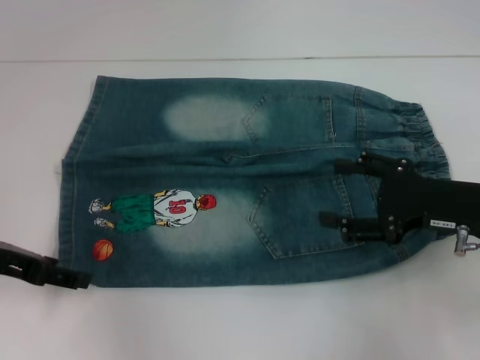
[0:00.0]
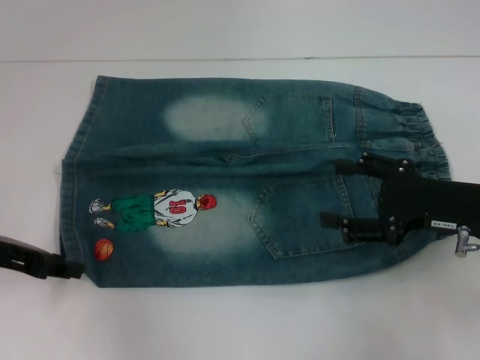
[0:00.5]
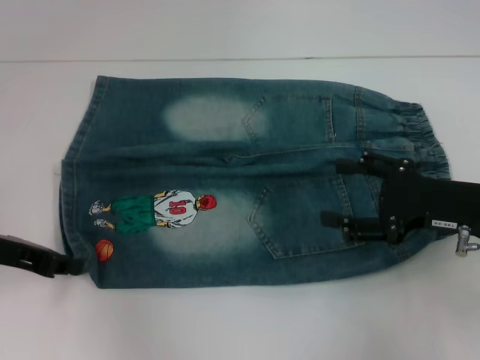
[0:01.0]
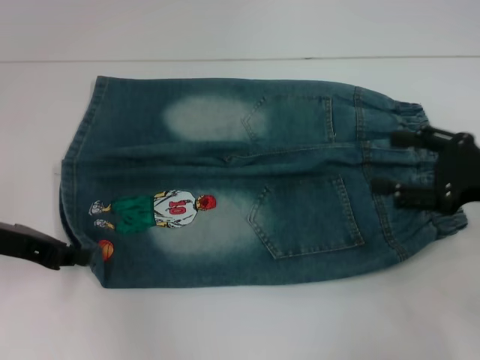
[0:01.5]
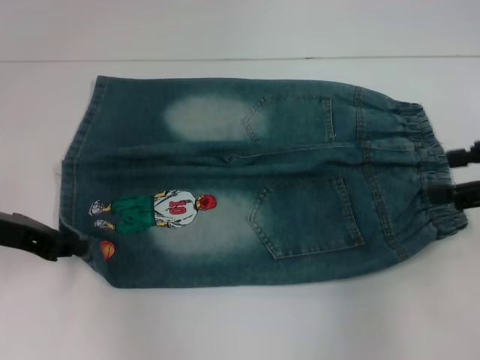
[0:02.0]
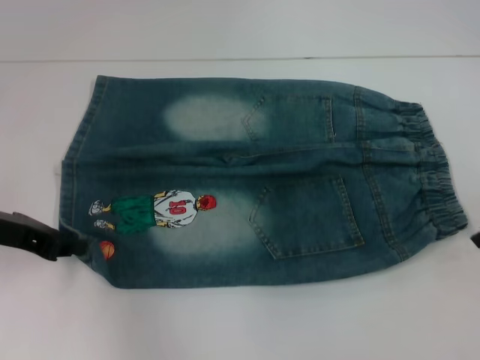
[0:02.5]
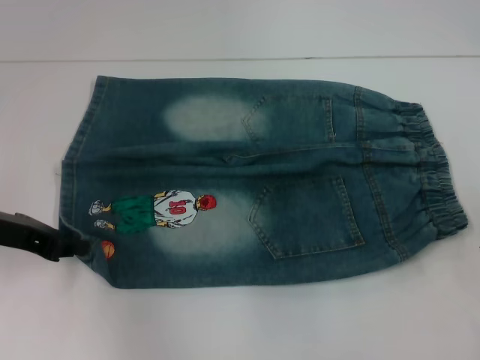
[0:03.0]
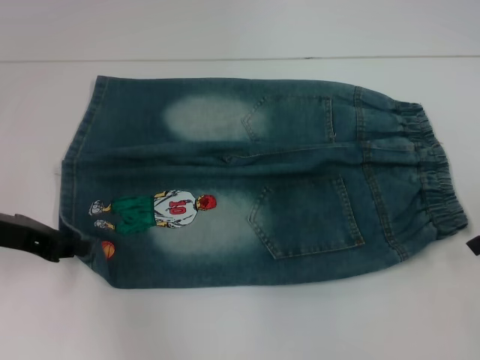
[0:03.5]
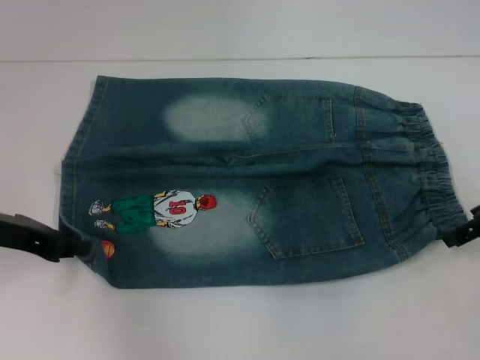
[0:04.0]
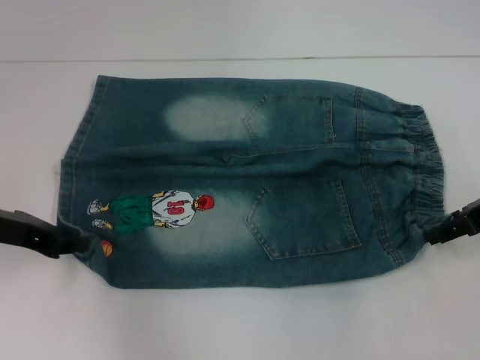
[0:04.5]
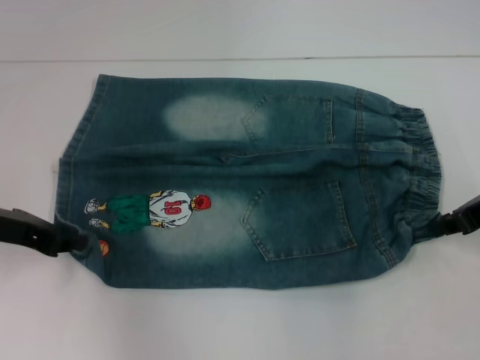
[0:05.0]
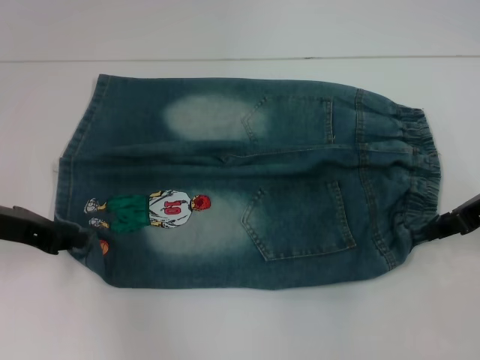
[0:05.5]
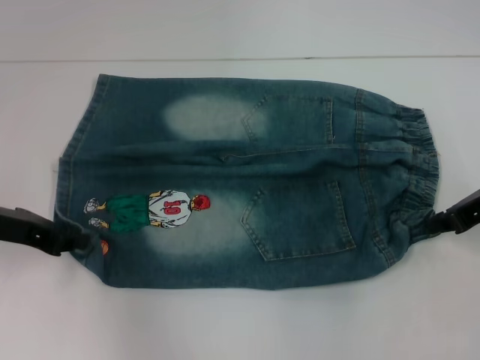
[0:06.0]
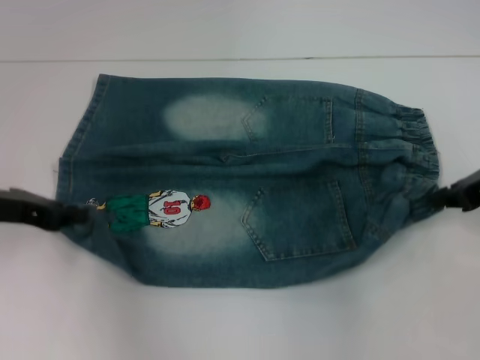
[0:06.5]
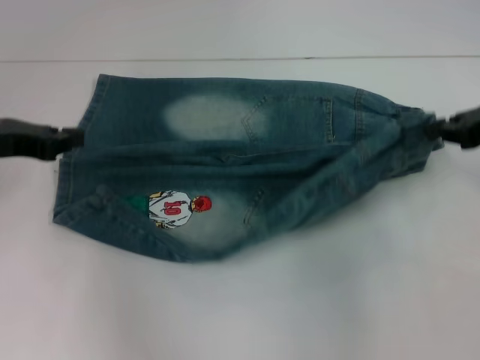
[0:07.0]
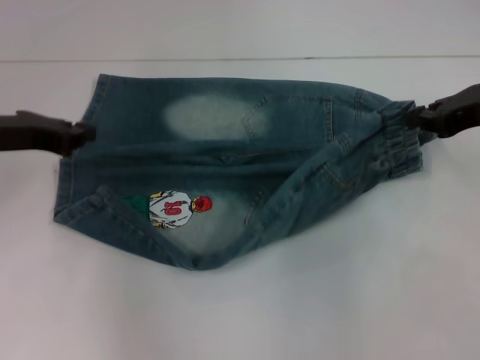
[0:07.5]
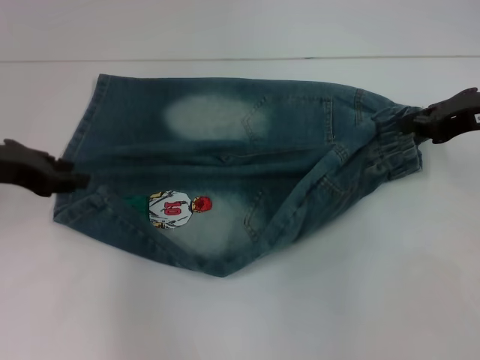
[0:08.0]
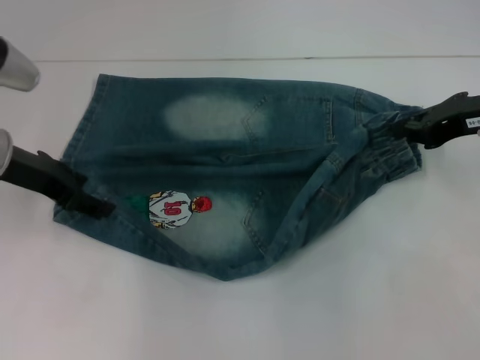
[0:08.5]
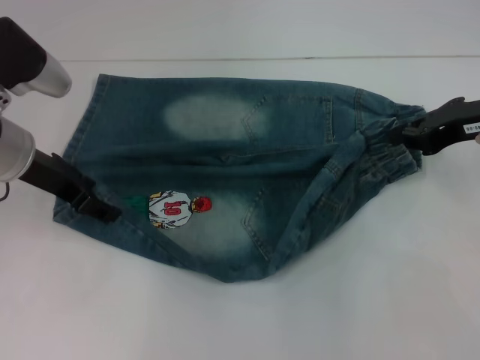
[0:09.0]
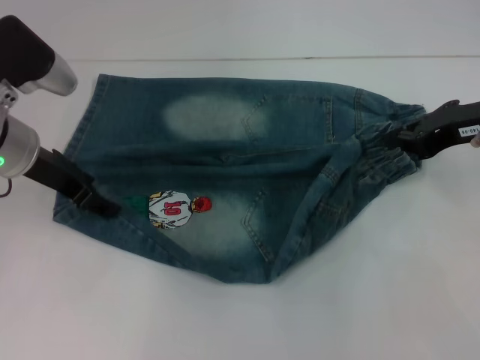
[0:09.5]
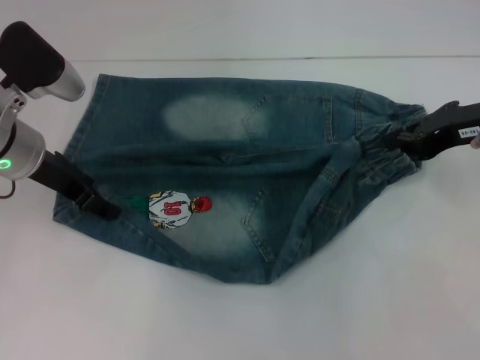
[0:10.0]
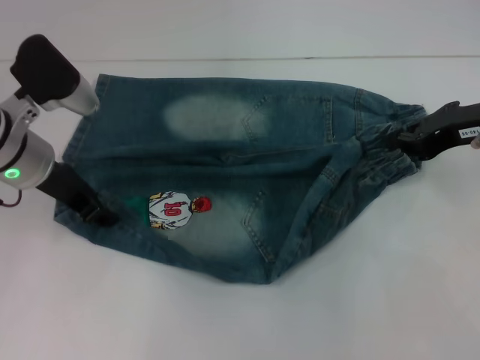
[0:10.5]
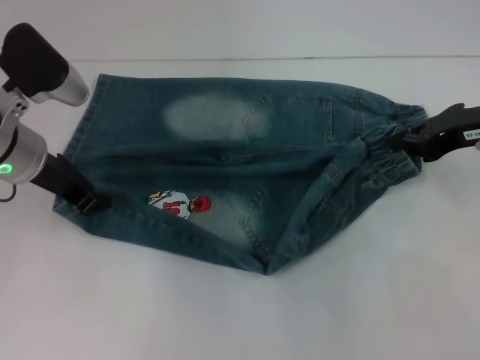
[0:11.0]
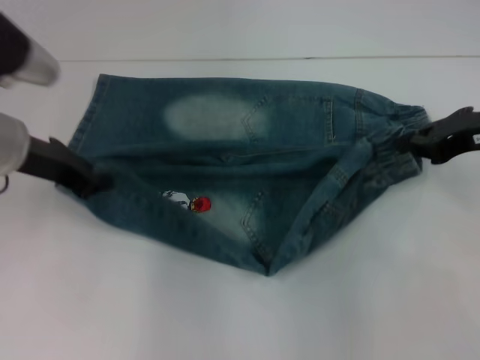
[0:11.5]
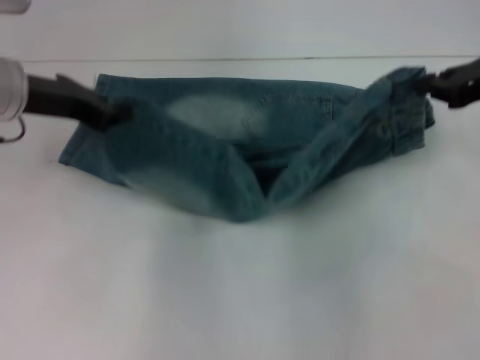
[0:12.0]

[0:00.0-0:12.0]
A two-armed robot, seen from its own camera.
Step, 0:00.0 to 0:05.5: Hold the lower right waistband with your right hand.
Step, 0:06.5 to 0:11.0: Grab the lower left pant leg with your left hand.
0:00.0 to 0:02.0: The left gripper closes, while the right gripper goes about 10 cm upward and to the right.
0:02.0 to 0:04.0: The right gripper changes place by some 5 cm.
0:04.0 to 0:06.0: The right gripper closes its fingers.
0:06.0 to 0:08.0: The right gripper moves some 5 cm.
0:08.0 to 0:10.0: The left gripper is displaced to the right by about 5 cm, and opens its fingers.
0:10.0 to 0:12.0: The left gripper goes about 5 cm upward, and closes its fingers.

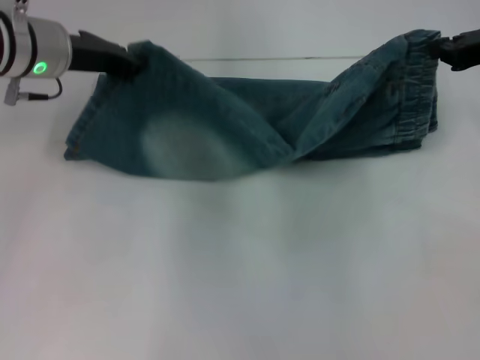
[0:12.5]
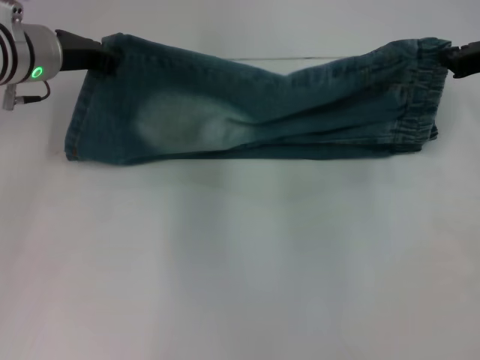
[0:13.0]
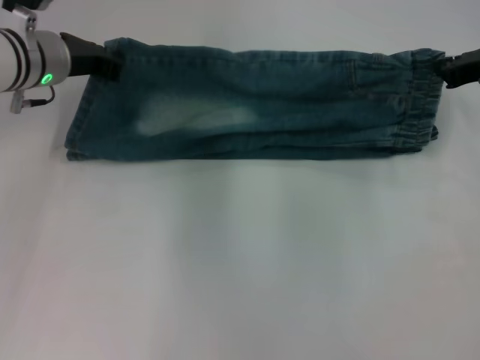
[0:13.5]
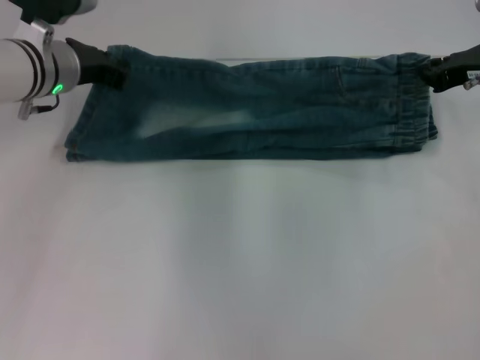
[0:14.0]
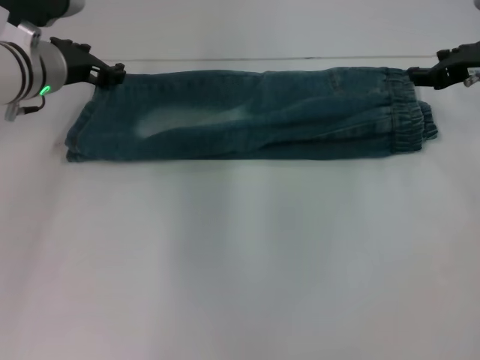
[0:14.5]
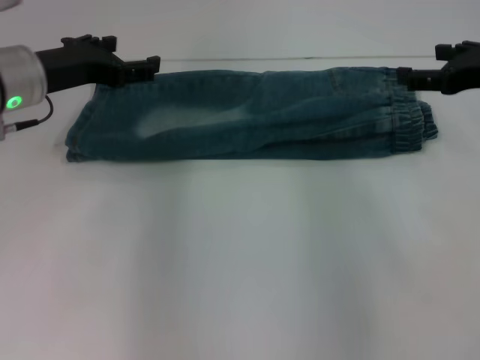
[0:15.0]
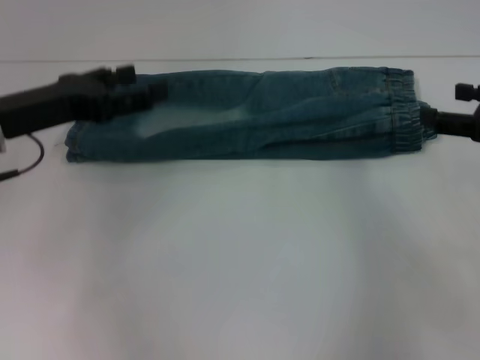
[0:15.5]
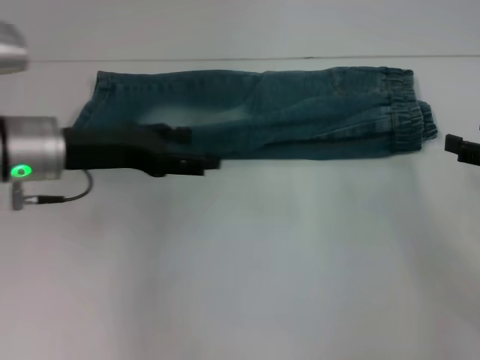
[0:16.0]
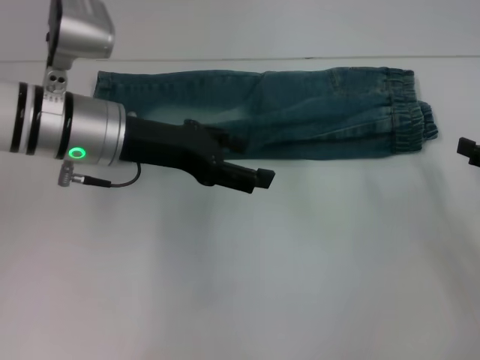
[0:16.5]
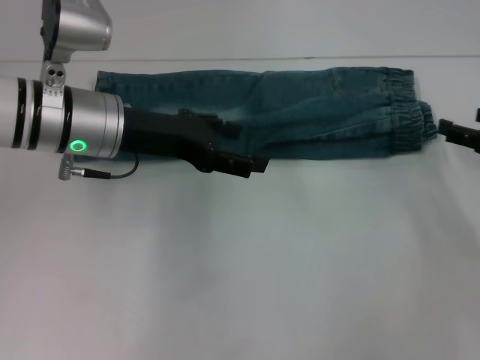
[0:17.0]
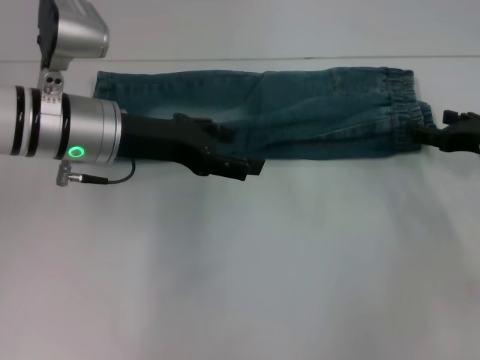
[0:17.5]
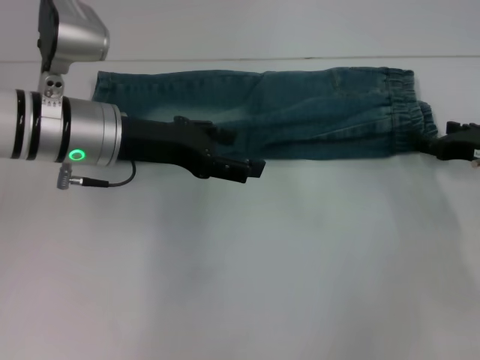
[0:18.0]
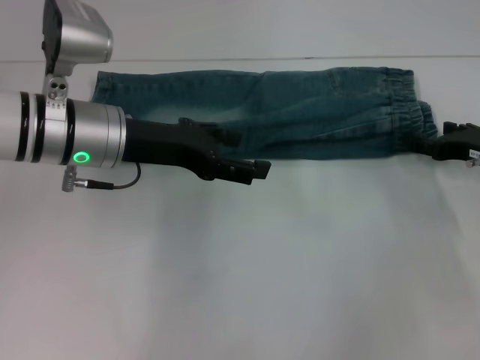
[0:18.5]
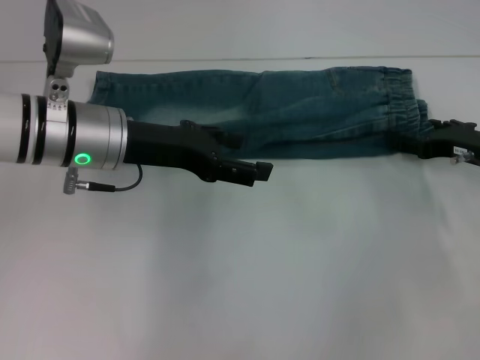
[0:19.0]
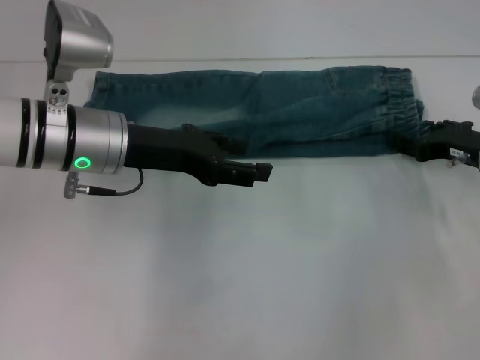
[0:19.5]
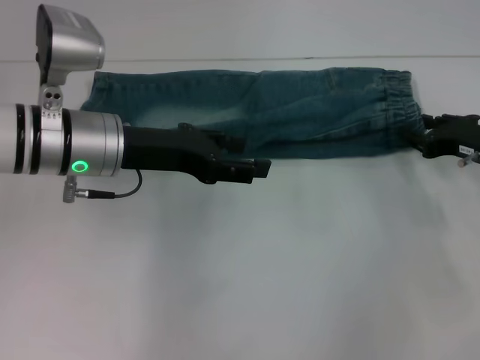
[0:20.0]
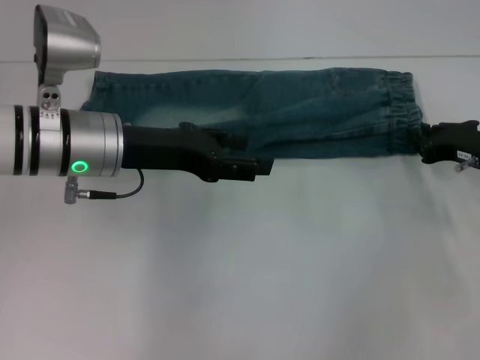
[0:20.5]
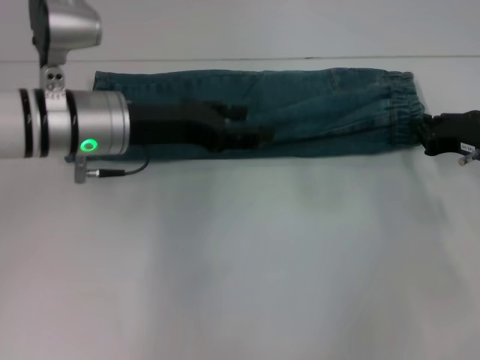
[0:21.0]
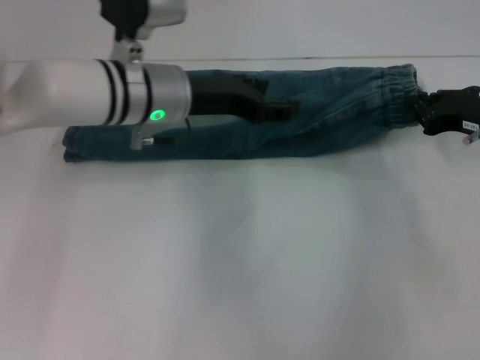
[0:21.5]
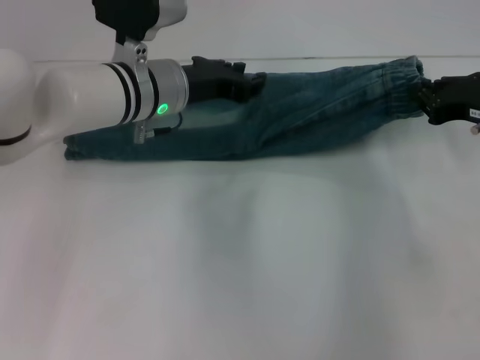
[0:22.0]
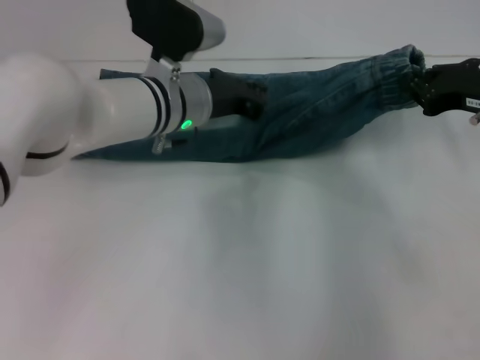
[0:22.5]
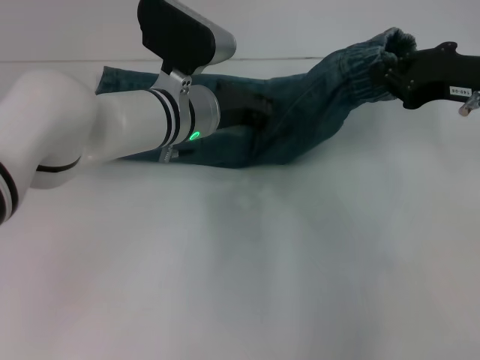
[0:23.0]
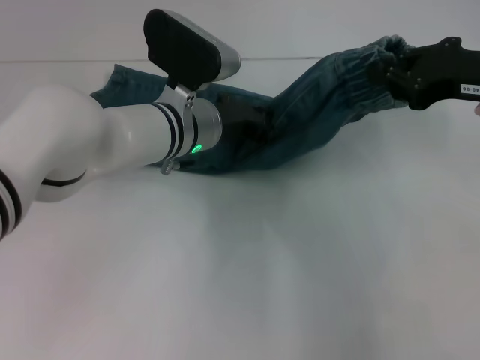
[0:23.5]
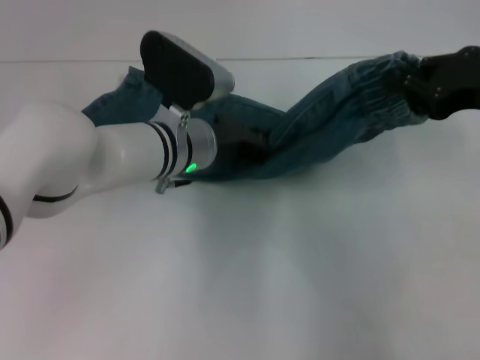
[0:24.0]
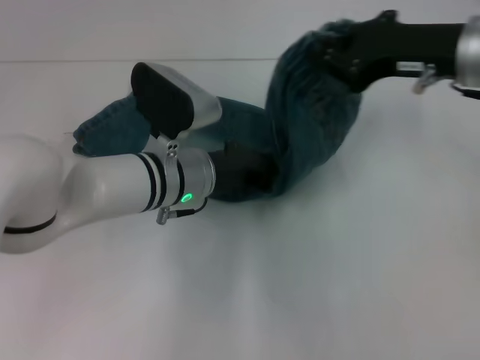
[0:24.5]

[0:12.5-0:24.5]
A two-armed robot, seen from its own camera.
Step, 0:12.5 to 0:14.0: Fold upward with your right hand.
Step, 0:14.5 to 0:21.0: Grab the waistband with your right hand.
0:12.5 to 0:14.5: The right gripper opens, while the left gripper opens up.
0:14.5 to 0:16.5: The left gripper moves backward, roughly 10 cm, and opens its fingers. Meanwhile the right gripper goes some 15 cm backward, to the right and downward, and opens.
0:16.5 to 0:18.5: The right gripper heads forward and to the left, covering roughly 10 cm.
0:18.5 to 0:20.5: The right gripper closes.
0:20.5 to 0:22.5: The left gripper moves to the right and forward, roughly 10 cm, and closes. Meanwhile the right gripper shifts some 10 cm upward.
0:22.5 to 0:24.5: The right gripper shifts approximately 10 cm to the left and upward. The left gripper goes roughly 5 cm backward.

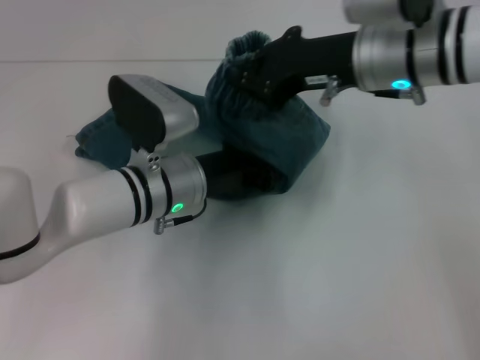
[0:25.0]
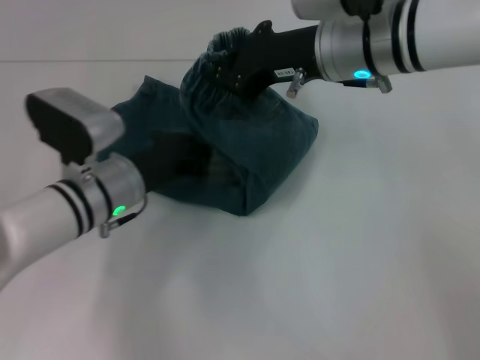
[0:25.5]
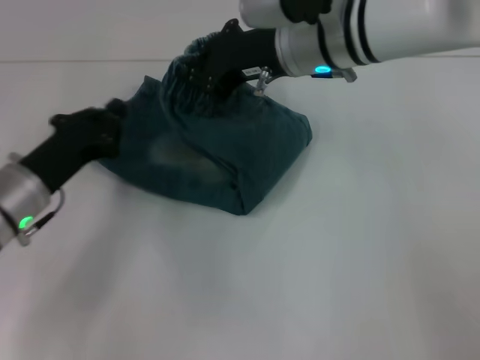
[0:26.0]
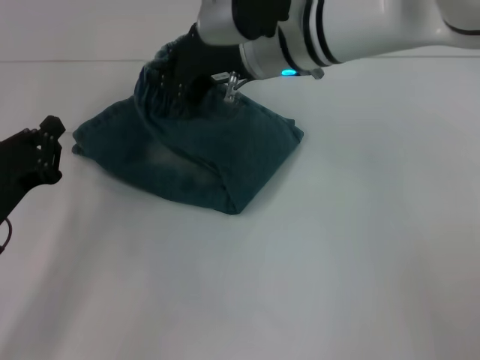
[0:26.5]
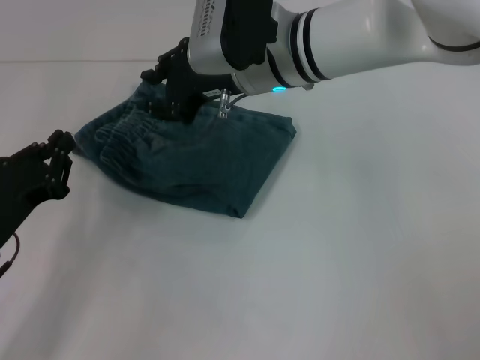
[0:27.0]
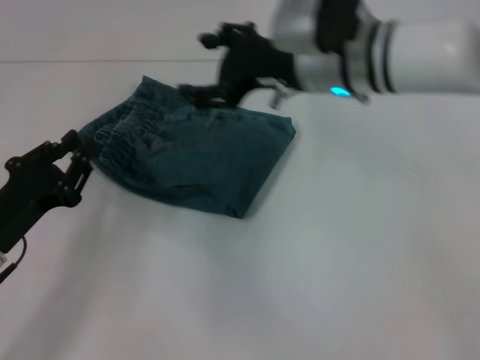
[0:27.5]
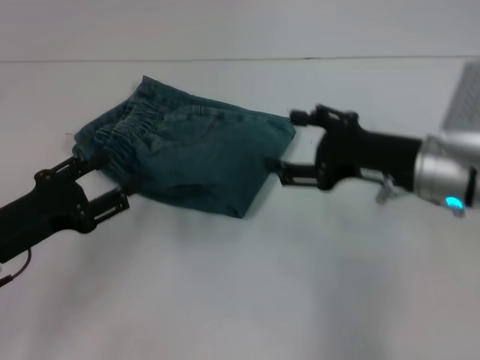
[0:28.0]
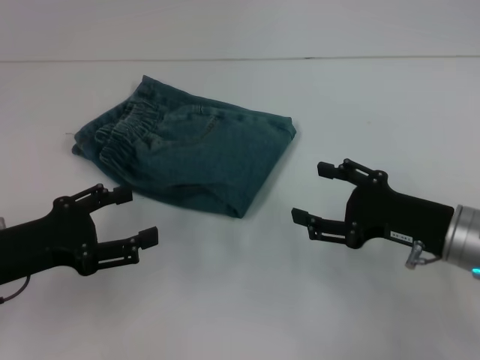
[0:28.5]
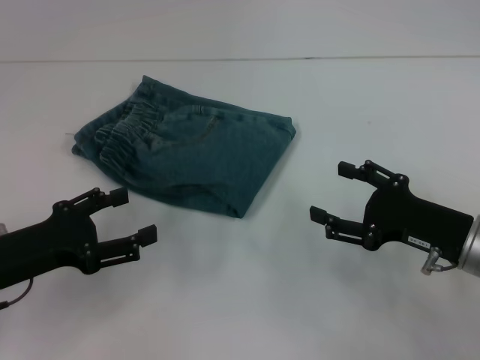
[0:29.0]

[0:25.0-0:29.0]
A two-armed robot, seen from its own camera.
Step, 0:25.5 to 0:26.5: Fold to the left with your right hand.
0:25.0 to 0:27.0: The left gripper is displaced to the left and backward by about 20 cm. Meanwhile the right gripper moves to the left, some 10 cm.
0:27.0 to 0:29.0: The right gripper goes roughly 30 cm to the right, backward and downward, and opens, while the left gripper opens up.
